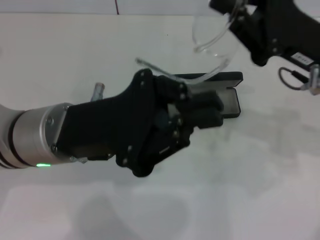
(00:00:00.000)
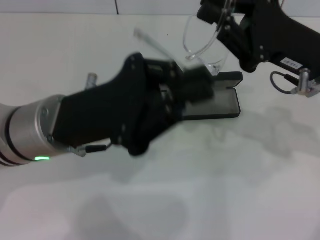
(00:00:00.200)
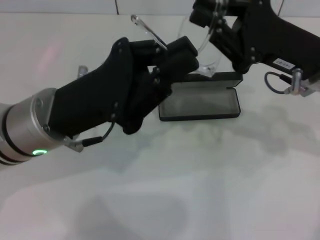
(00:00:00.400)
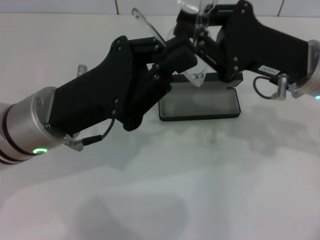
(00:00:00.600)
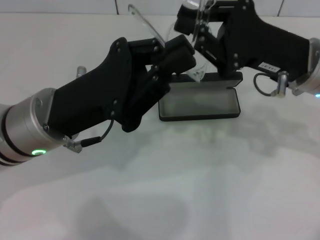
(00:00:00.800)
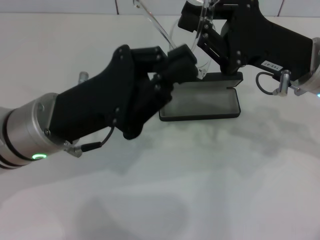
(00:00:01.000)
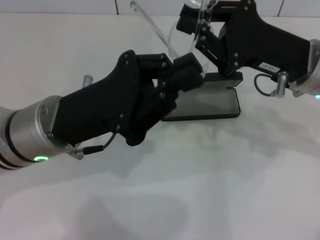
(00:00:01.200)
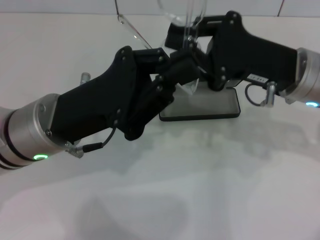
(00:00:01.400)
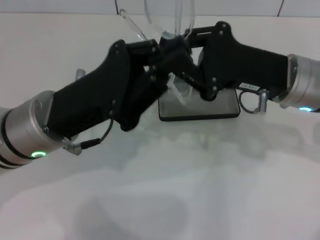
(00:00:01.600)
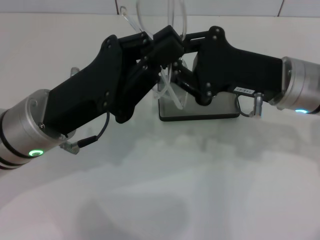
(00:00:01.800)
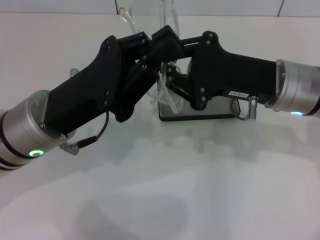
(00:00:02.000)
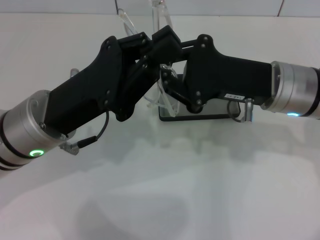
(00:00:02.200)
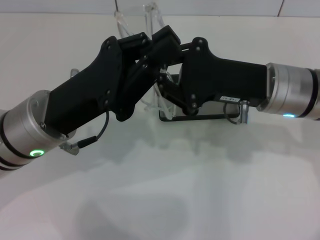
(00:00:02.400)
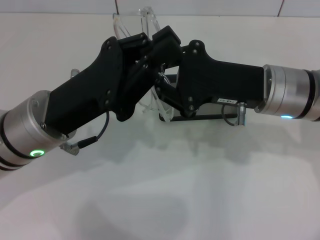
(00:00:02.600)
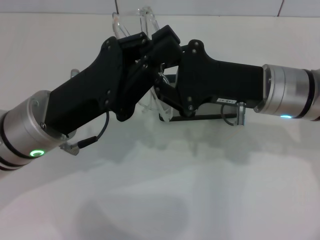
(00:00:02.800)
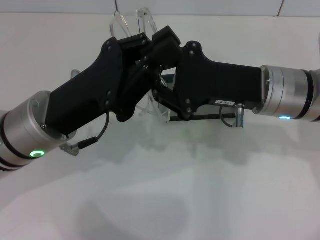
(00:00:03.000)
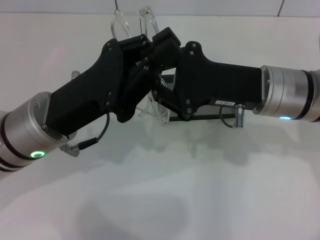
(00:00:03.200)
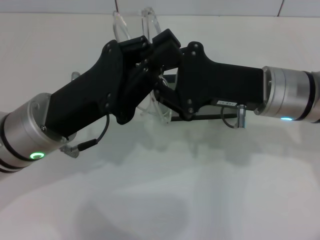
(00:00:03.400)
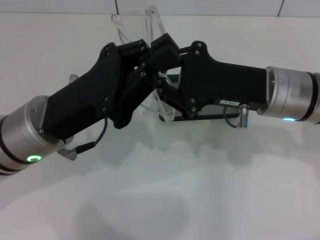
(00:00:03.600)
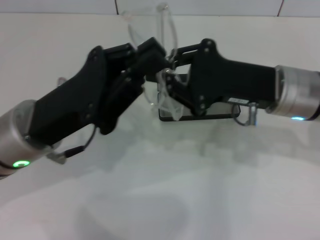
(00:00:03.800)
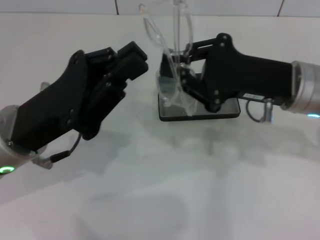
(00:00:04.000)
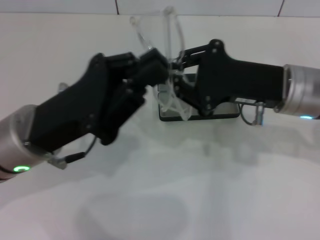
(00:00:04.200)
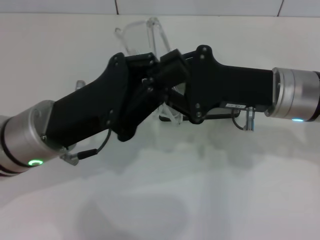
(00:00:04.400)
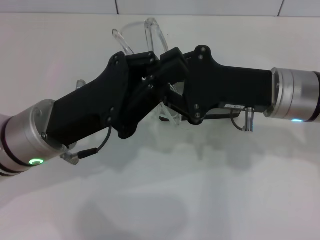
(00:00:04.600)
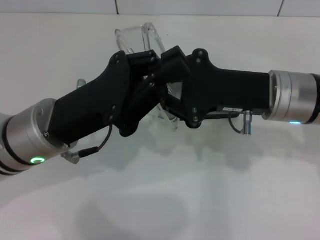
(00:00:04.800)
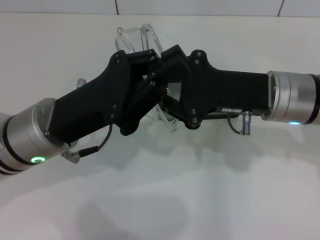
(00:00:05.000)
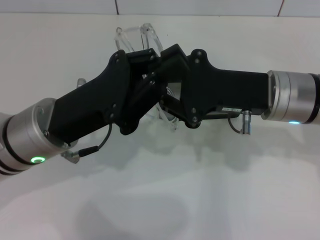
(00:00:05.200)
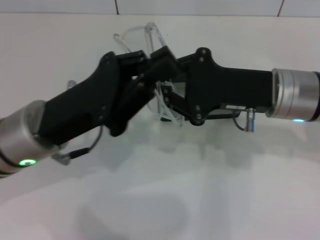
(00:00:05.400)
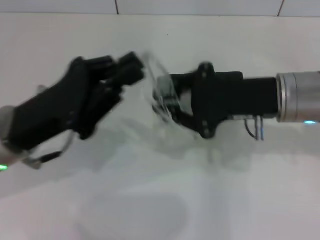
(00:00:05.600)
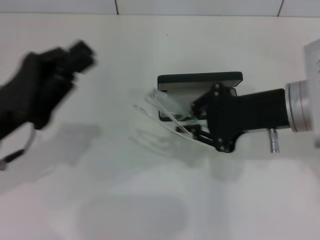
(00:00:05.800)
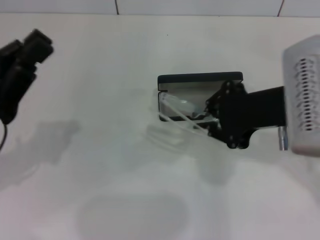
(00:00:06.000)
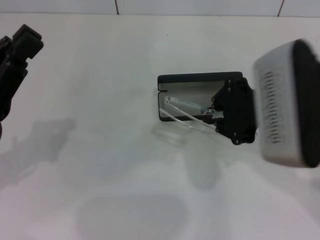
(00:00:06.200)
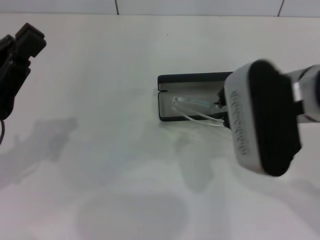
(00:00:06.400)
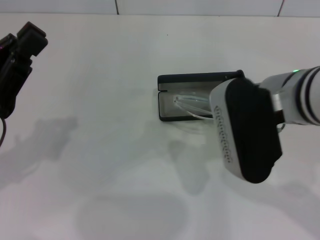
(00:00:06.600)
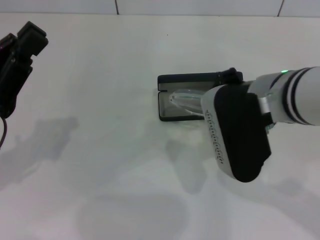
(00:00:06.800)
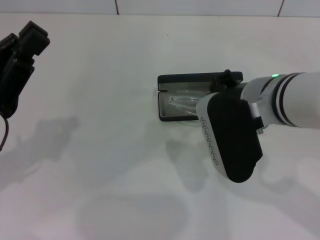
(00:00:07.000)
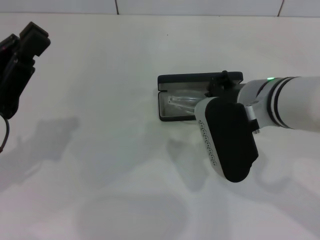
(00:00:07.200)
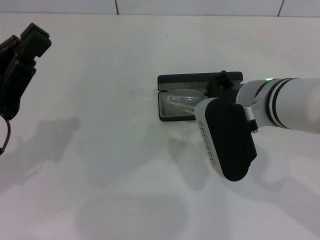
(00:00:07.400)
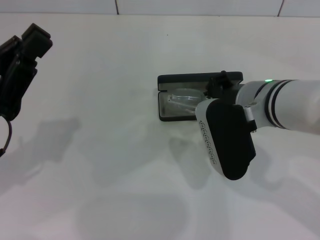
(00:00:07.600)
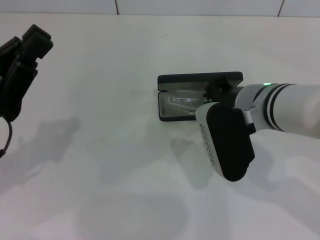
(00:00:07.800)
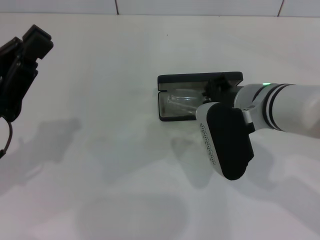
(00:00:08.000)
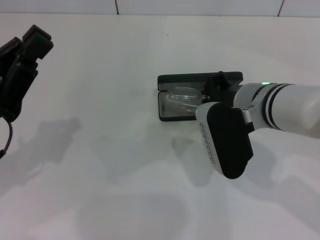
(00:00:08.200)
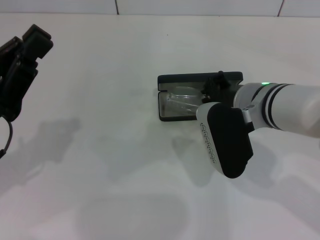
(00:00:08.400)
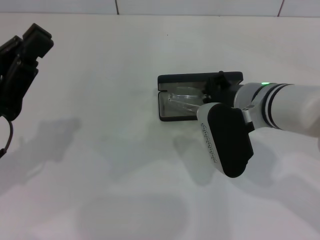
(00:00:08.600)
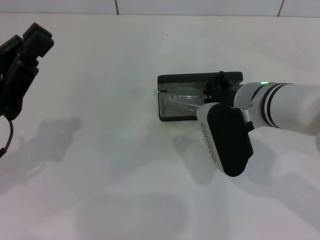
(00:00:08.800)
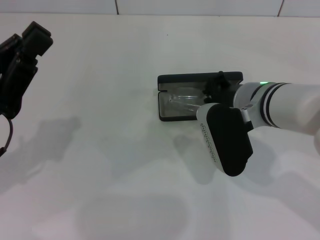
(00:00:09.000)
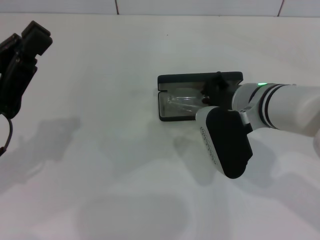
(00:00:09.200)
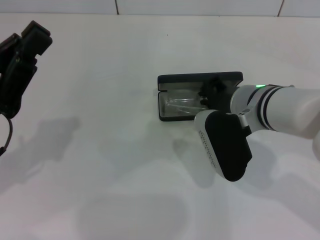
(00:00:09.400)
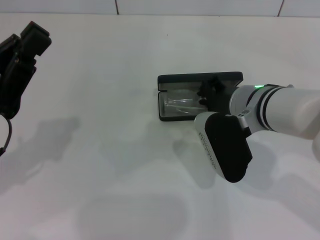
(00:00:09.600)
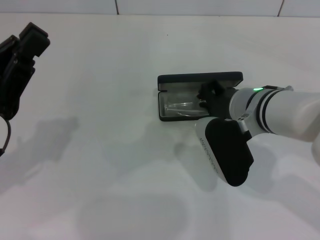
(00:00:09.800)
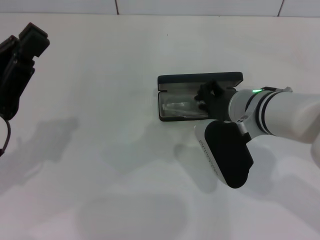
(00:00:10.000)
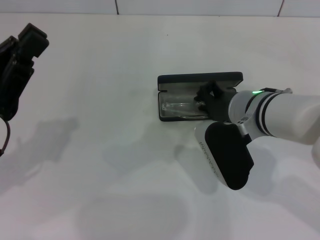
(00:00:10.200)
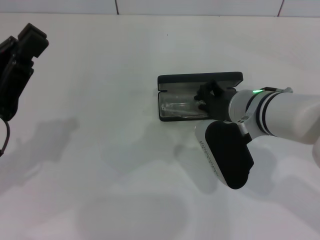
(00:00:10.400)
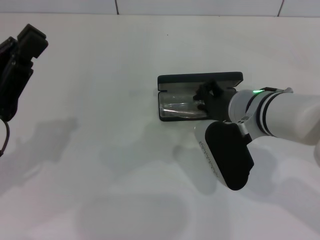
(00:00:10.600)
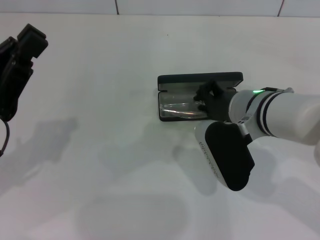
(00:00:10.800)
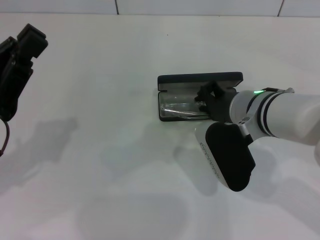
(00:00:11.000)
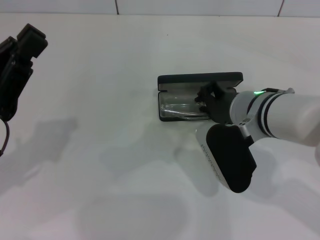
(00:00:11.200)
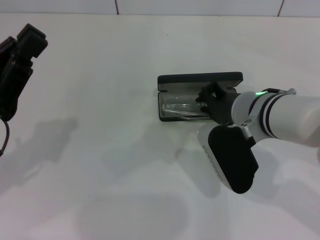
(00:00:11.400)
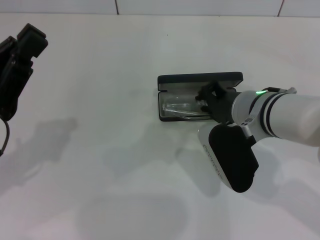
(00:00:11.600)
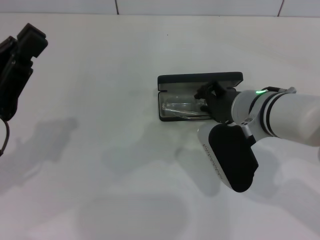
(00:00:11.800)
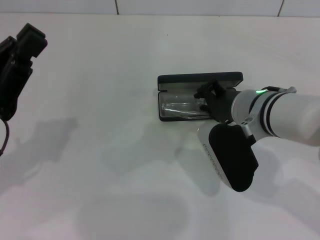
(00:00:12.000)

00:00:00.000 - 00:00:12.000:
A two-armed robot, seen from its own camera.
Step, 00:00:00.000 - 00:00:05.200: Lift the glasses with your right hand.
00:00:01.600 - 00:00:04.400: The grippers make only small movements.
00:00:04.400 - 00:00:06.000: The left gripper goes roughly 10 cm to the left. Meanwhile the right gripper travels upward by roughly 5 cm.
00:00:06.000 - 00:00:07.600: The right gripper moves downward and to the left, about 10 cm.
00:00:07.600 - 00:00:10.400: There are only small adjustments of the grippers.
00:00:10.400 - 00:00:12.000: Neither gripper changes place.

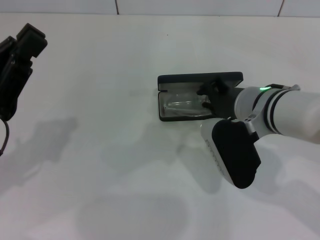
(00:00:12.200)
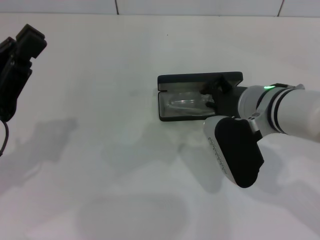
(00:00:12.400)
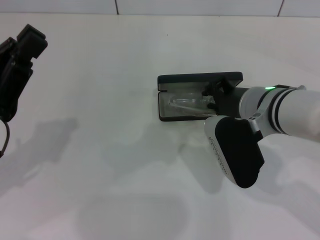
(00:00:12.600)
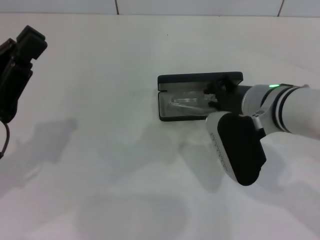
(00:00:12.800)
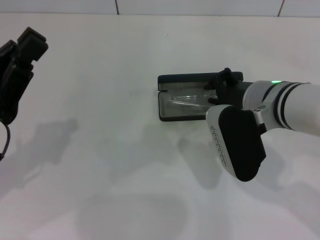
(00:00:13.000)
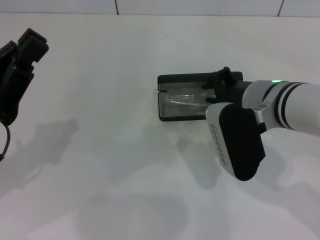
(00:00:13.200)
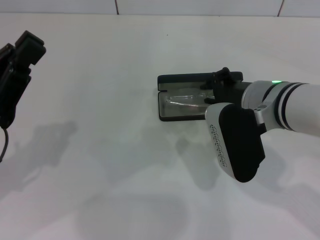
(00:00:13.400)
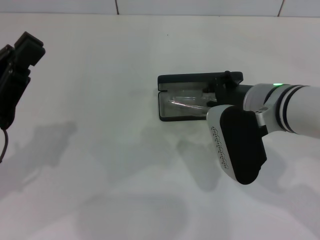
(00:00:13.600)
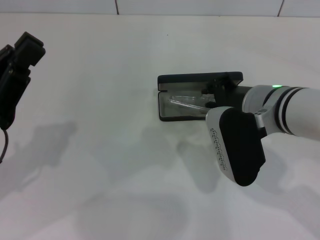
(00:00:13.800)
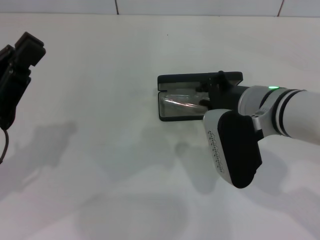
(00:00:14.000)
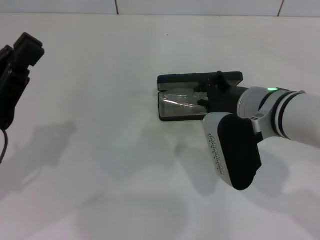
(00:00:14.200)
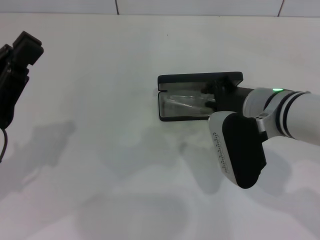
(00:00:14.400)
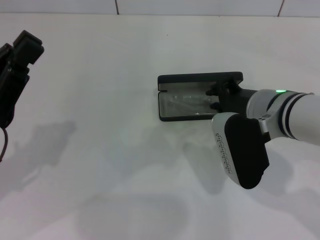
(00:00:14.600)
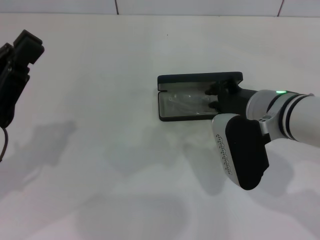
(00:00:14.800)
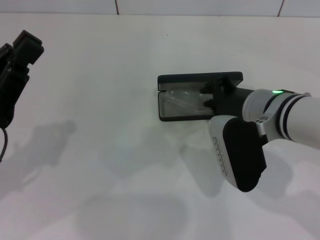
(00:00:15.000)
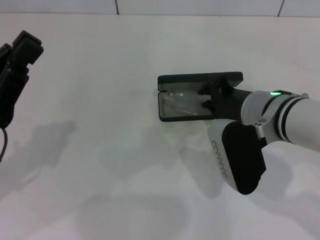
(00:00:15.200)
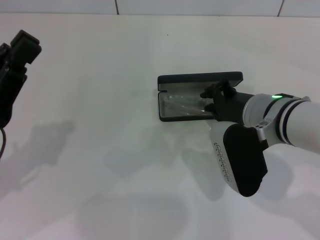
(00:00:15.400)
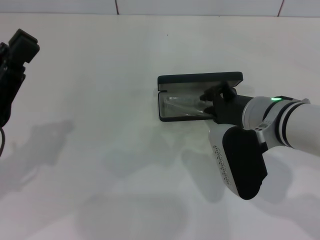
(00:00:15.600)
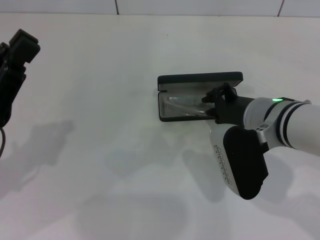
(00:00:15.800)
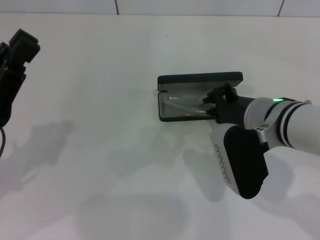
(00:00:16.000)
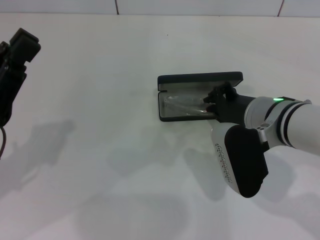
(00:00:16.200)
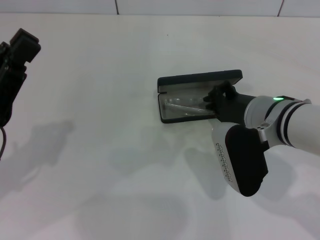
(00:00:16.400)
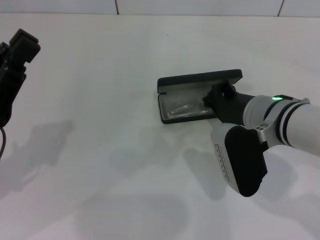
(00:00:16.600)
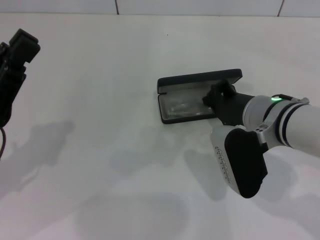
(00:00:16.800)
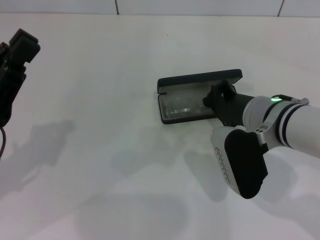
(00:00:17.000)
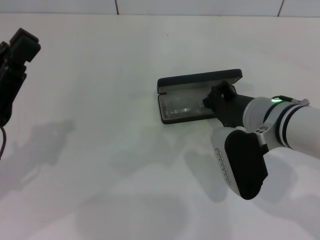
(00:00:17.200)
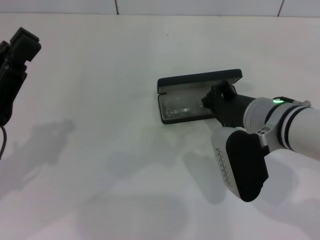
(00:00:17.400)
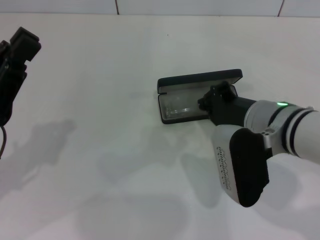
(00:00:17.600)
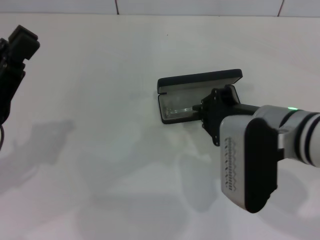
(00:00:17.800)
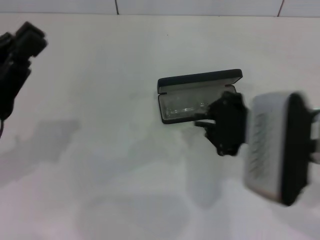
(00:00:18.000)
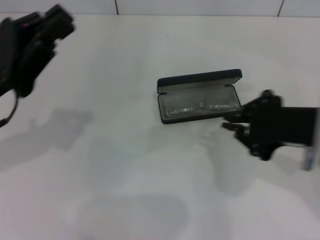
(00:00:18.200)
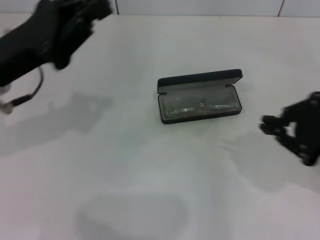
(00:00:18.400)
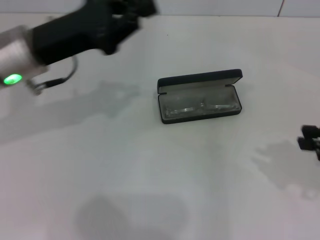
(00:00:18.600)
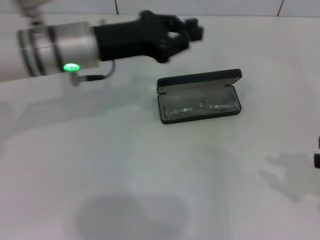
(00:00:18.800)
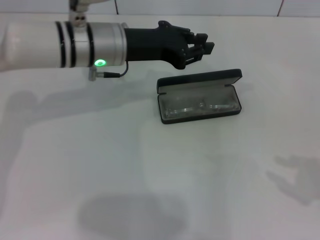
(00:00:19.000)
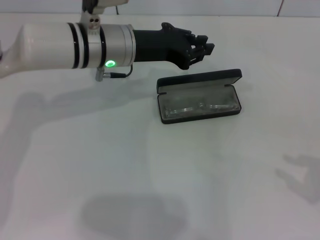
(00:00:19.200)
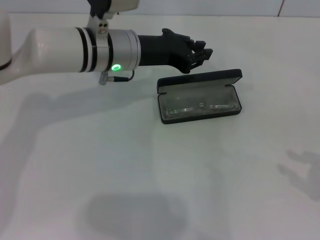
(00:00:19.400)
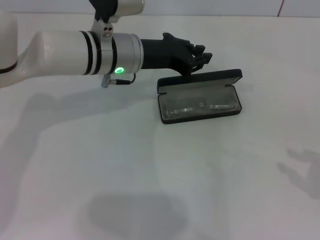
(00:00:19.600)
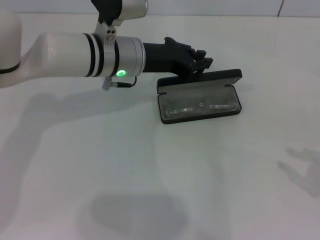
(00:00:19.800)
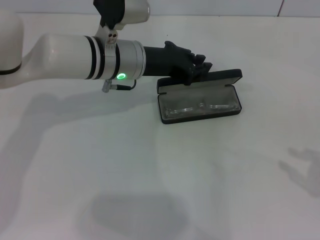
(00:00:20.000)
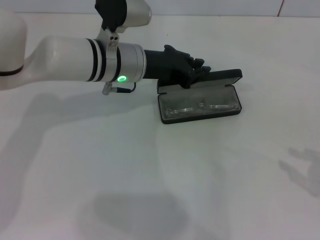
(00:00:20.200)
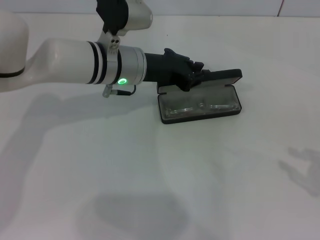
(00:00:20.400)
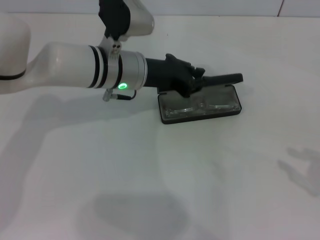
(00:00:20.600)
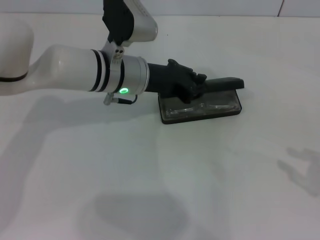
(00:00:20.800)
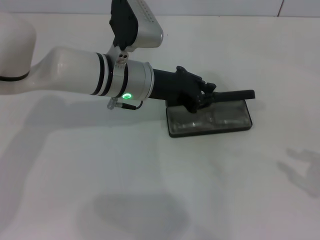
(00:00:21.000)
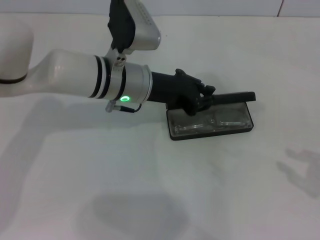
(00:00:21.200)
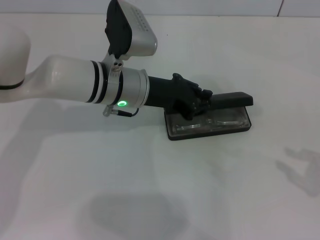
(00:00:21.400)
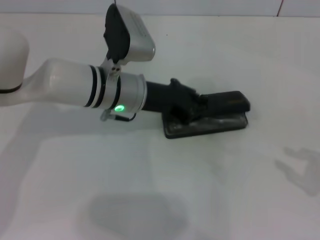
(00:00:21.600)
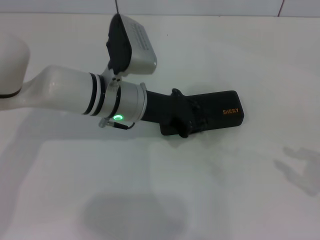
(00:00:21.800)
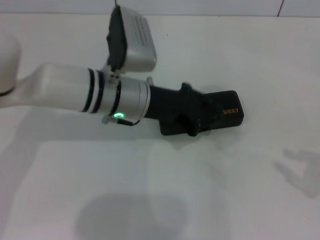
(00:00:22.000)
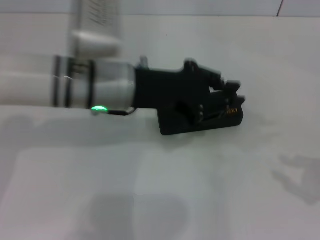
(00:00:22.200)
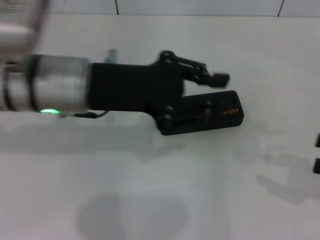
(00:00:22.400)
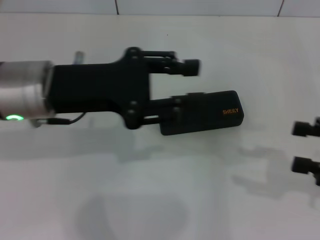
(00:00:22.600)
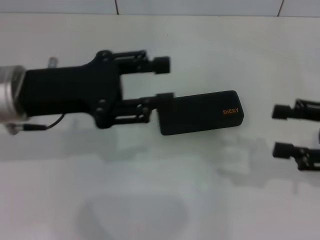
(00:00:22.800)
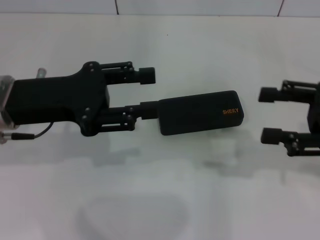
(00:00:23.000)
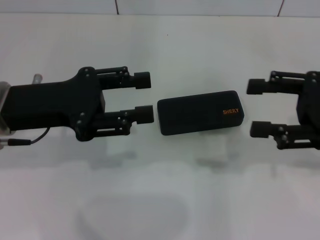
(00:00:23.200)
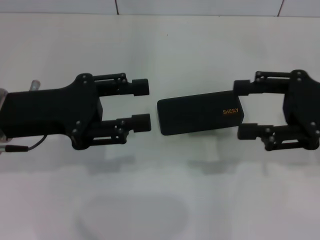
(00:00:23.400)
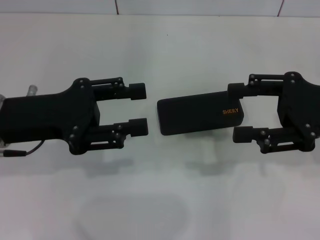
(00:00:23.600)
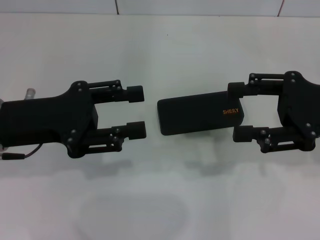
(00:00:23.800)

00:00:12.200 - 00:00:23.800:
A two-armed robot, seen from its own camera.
Step, 00:00:12.200 - 00:00:17.200: Put the glasses into the case with your right hand.
Step, 00:00:17.400 - 00:00:21.600: Close the glasses case with your left hand.
00:00:12.200 - 00:00:15.000: The grippers move only a little.
00:00:15.000 - 00:00:16.600: Both grippers stay about where they are.
00:00:16.600 - 00:00:18.000: The right gripper is displaced upward and backward by approximately 10 cm.
00:00:18.000 - 00:00:19.400: The right gripper shifts approximately 25 cm to the right, and opens up, while the left gripper is displaced to the right and forward by about 25 cm.
00:00:19.400 - 00:00:21.000: There are only small adjustments of the grippers.
00:00:21.000 - 00:00:22.400: The left gripper goes approximately 15 cm upward, backward and to the left.
00:00:22.400 - 00:00:23.800: The right gripper shifts approximately 15 cm to the left, forward and upward, and opens up. Meanwhile the left gripper goes some 10 cm to the left, and opens up.
